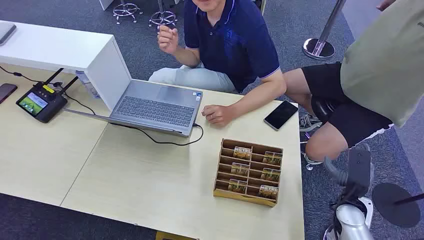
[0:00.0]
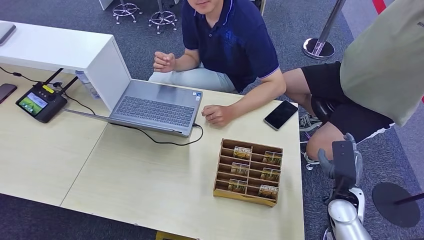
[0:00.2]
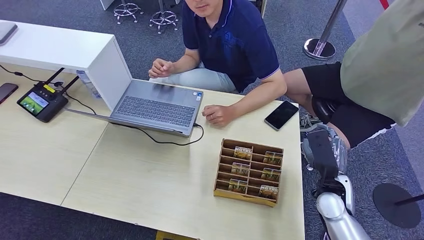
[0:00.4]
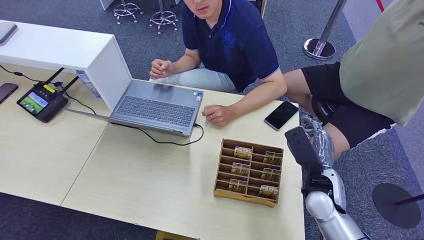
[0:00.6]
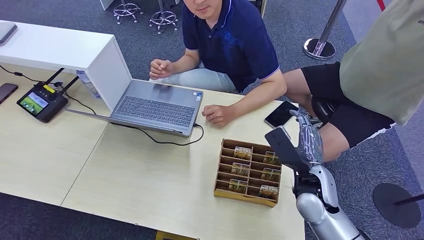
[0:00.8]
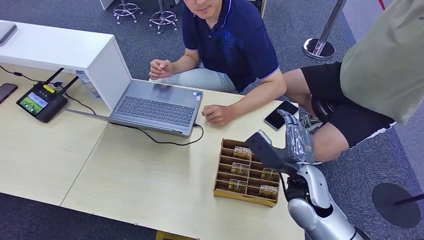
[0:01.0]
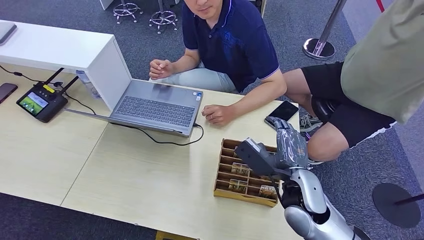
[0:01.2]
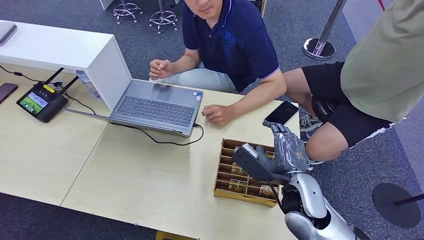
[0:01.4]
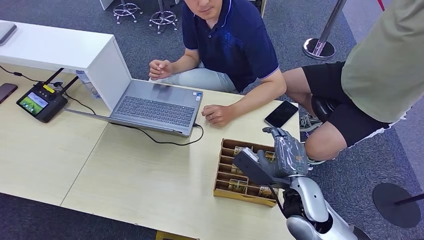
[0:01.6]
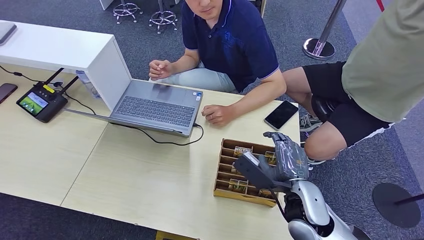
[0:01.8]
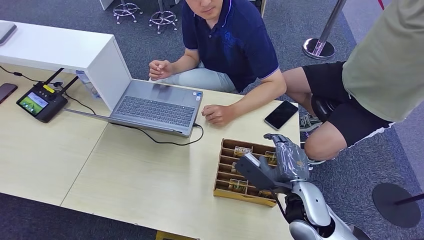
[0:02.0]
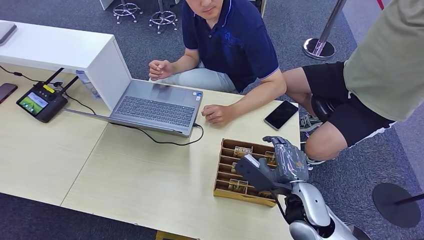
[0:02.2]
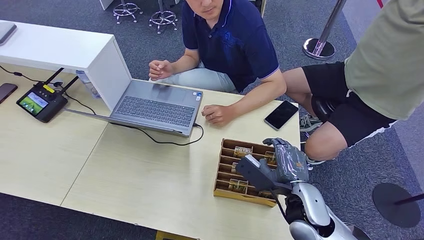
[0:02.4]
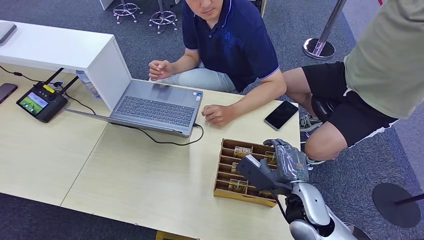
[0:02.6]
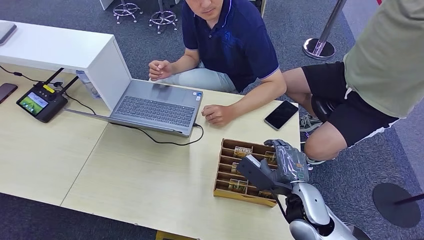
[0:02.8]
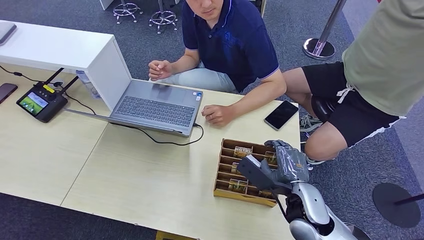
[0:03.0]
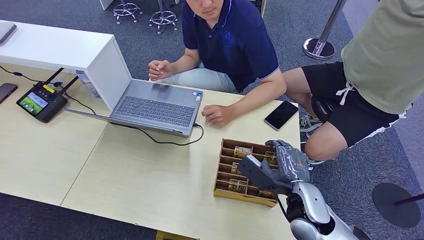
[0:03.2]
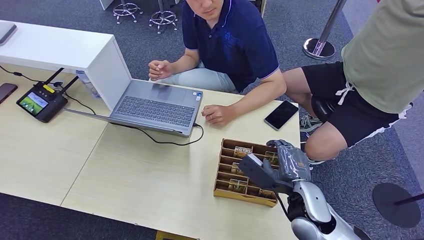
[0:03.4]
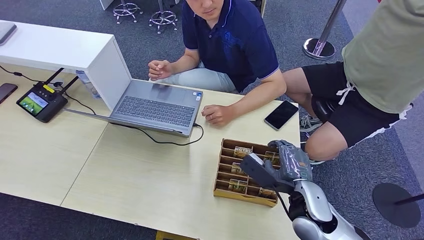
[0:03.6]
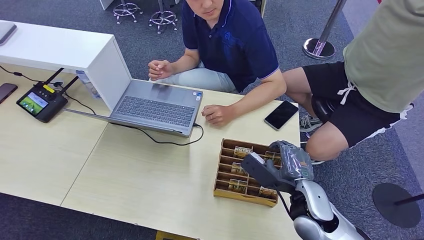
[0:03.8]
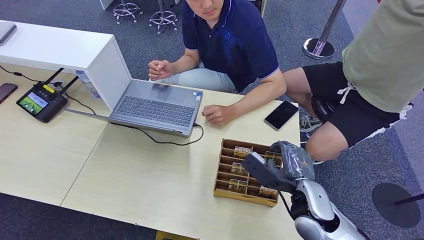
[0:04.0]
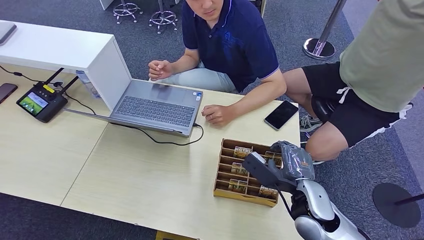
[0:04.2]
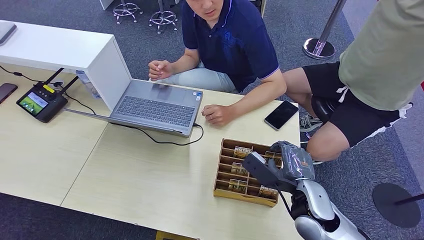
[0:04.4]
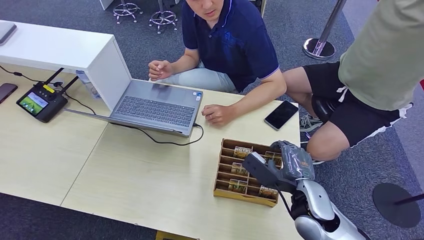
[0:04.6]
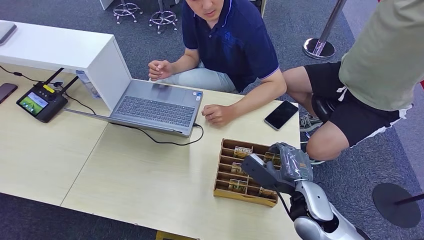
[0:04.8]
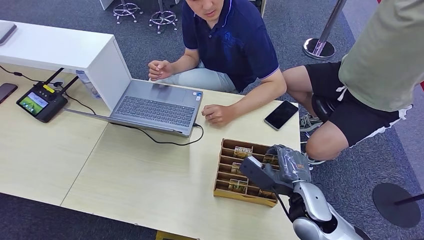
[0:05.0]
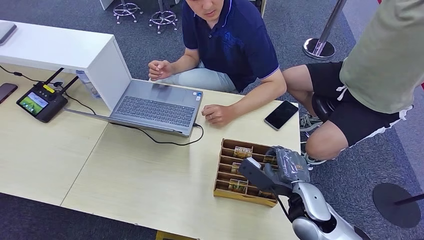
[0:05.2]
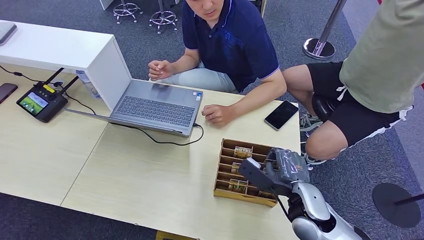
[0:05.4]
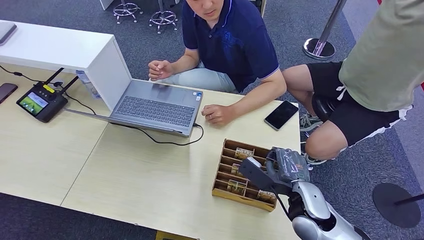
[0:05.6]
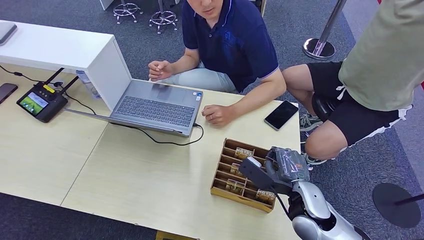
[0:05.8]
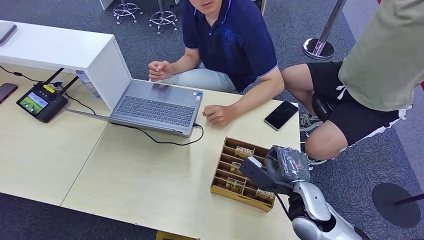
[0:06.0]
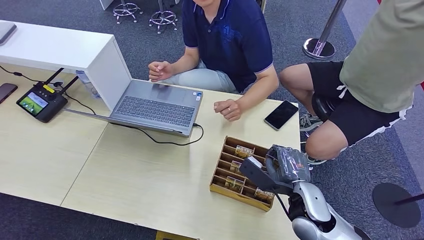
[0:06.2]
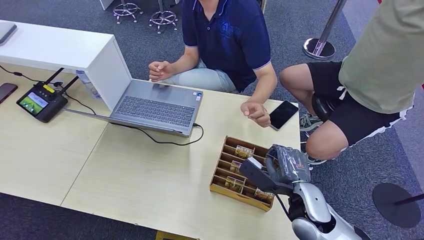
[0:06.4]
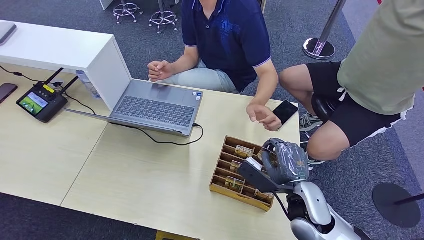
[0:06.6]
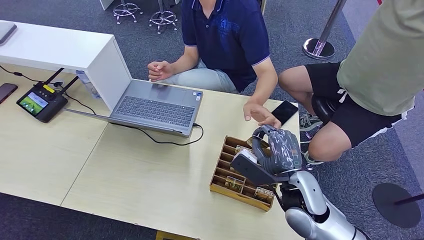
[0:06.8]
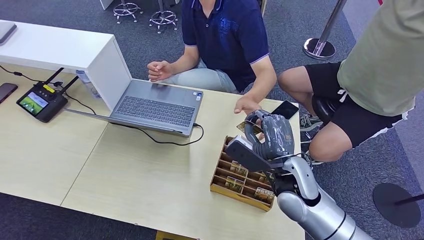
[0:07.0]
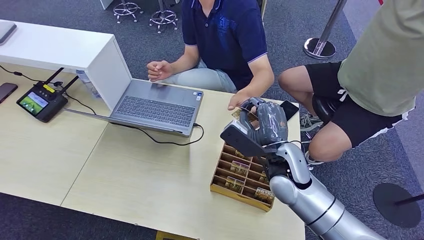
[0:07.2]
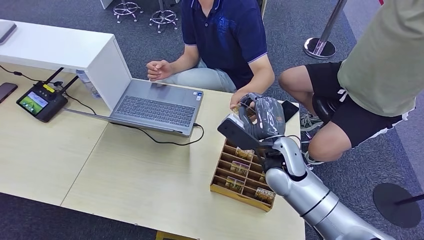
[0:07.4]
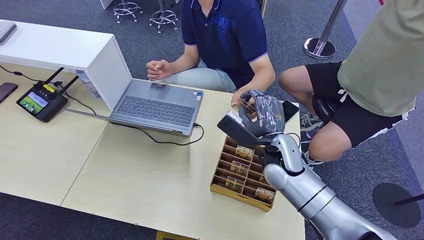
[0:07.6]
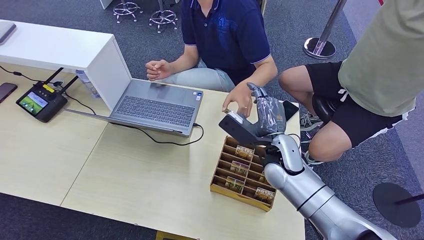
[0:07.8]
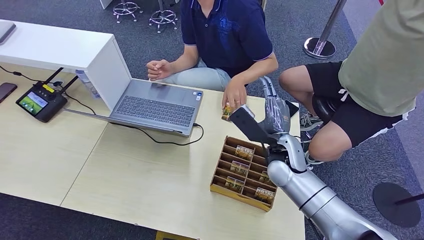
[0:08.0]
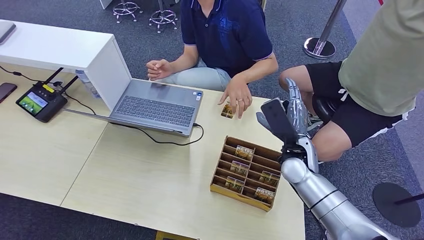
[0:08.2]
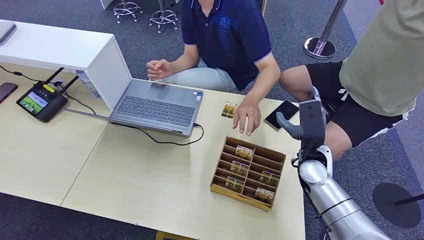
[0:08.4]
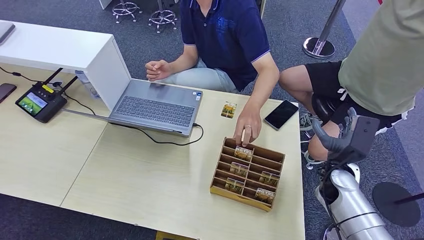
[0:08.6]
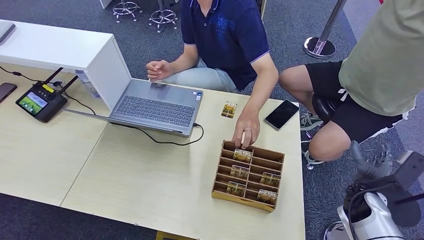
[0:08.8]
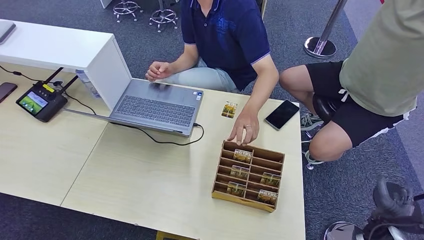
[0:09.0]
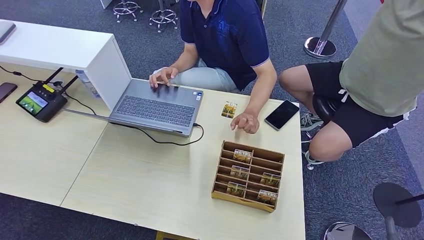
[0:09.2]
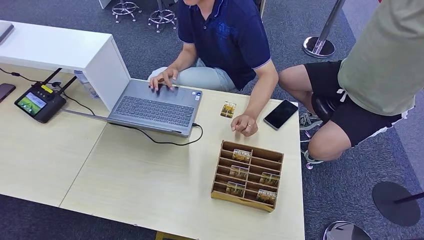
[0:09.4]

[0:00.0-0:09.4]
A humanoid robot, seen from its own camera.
Step, 0:00.0 to 0:07.0: Pick up the room card from the card holder.
Step, 0:07.2 to 0:09.4: Hand the room card to the target.
0:01.6 to 0:03.2: The hands stay close to where they were, moving slightly.
0:03.2 to 0:04.8: Both hands stay about where they are.
0:04.8 to 0:06.2: Both hands stay about where they are.
0:06.2 to 0:07.8: The right hand is displaced forward and to the left by some 10 cm.
0:07.8 to 0:09.4: The right hand shifts some 50 cm to the right, downward and backward.

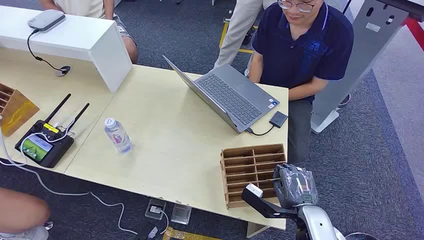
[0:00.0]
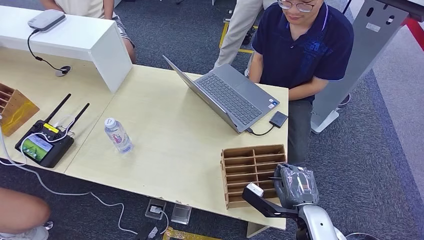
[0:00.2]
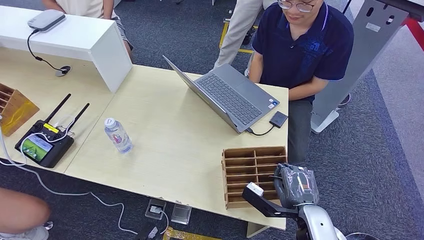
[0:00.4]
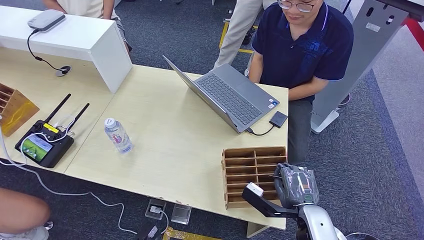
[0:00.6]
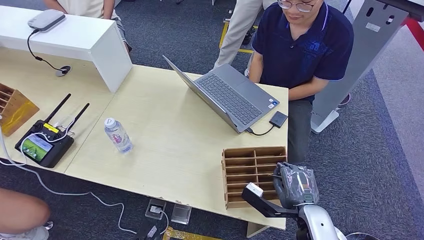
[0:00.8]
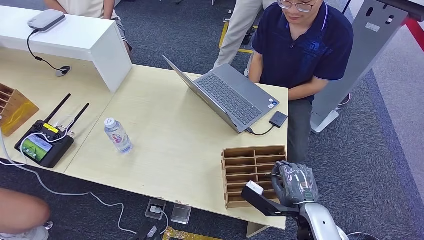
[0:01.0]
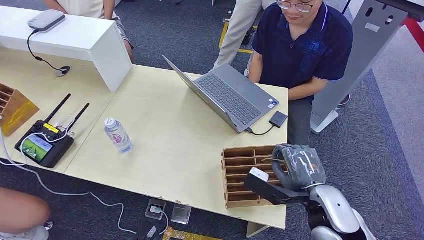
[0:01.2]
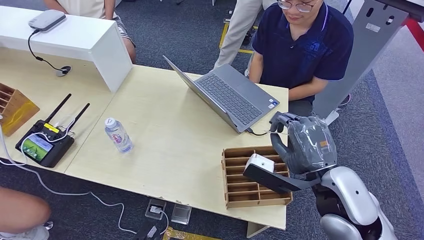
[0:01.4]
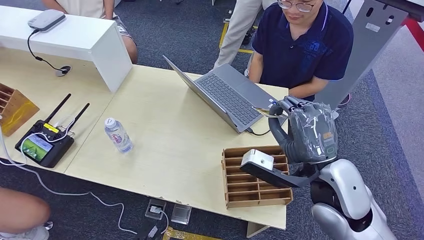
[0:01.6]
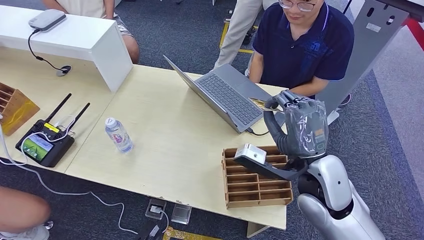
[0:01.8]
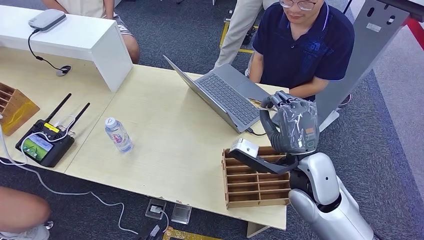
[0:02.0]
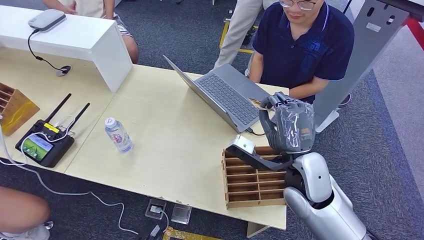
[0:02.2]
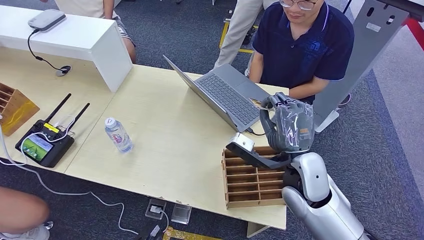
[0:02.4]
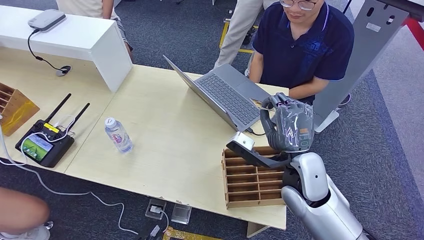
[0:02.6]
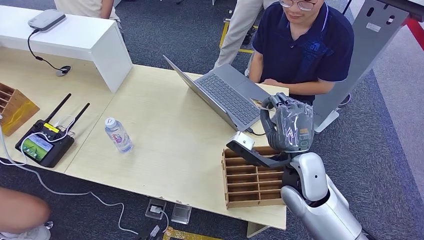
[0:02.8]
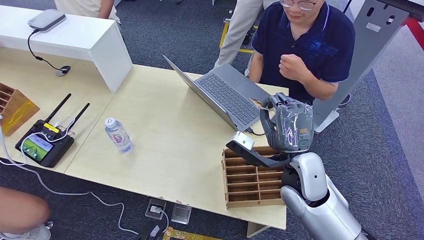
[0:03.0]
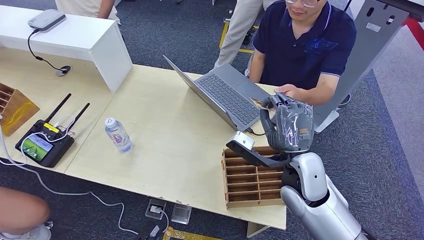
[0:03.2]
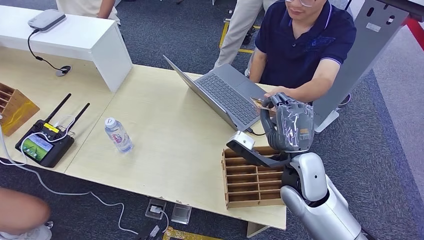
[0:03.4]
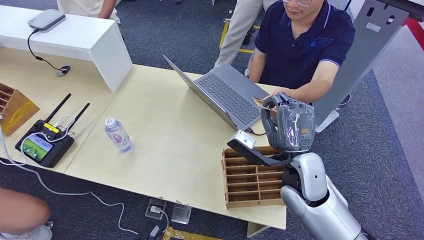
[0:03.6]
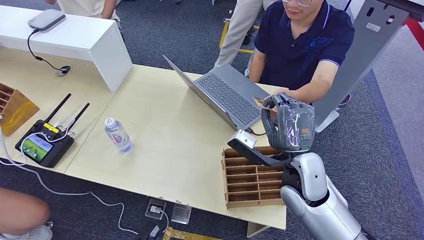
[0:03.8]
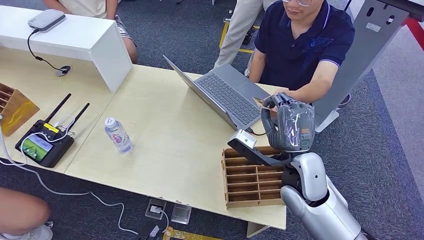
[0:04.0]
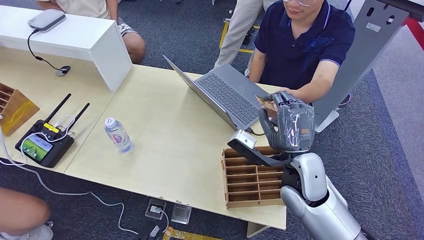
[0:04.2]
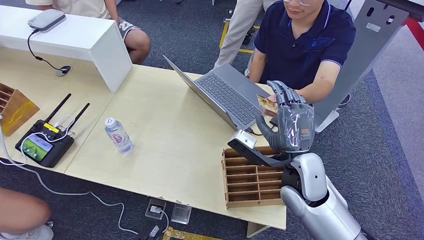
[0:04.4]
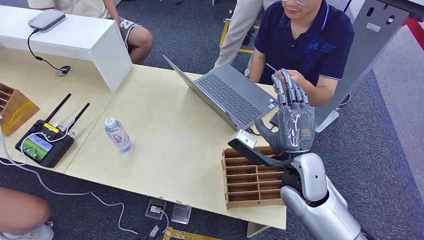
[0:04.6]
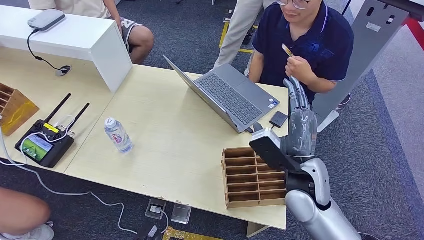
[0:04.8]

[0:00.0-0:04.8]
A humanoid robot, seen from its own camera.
Step, 0:00.0 to 0:01.4: Pick up the room card from the card holder.
Step, 0:01.8 to 0:04.8: Hand the room card to the target.
0:01.6 to 0:03.2: The right hand heads downward, covering roughly 5 cm.
